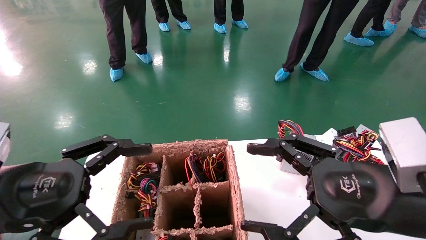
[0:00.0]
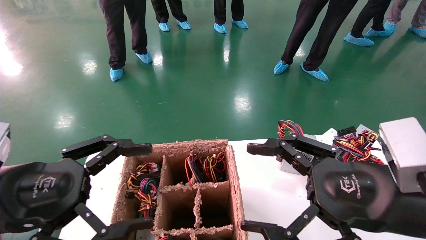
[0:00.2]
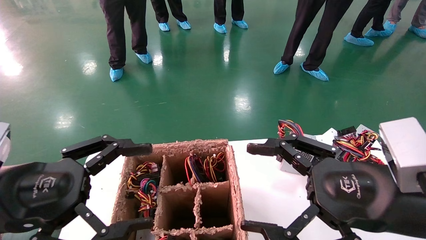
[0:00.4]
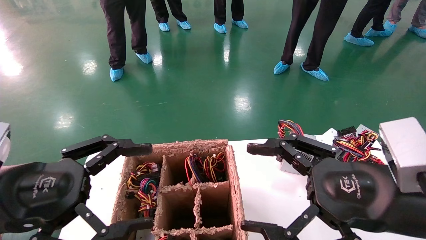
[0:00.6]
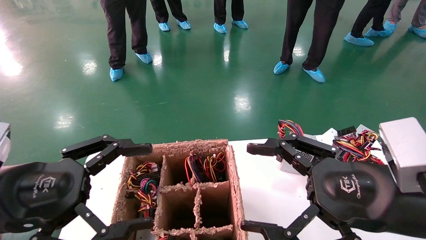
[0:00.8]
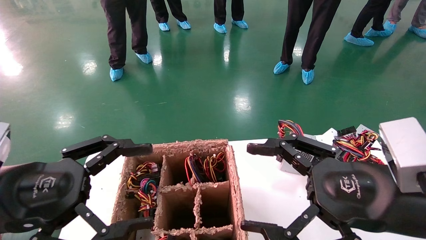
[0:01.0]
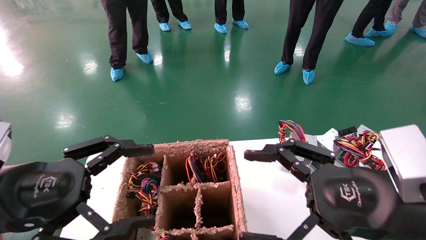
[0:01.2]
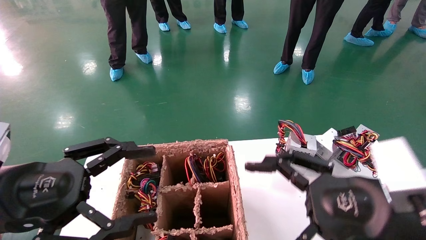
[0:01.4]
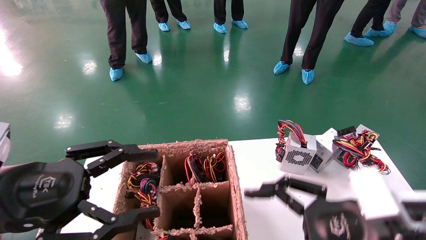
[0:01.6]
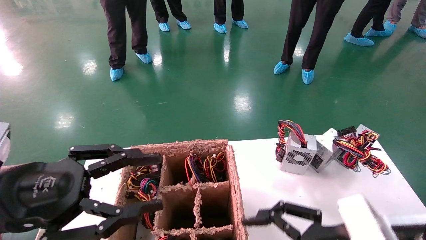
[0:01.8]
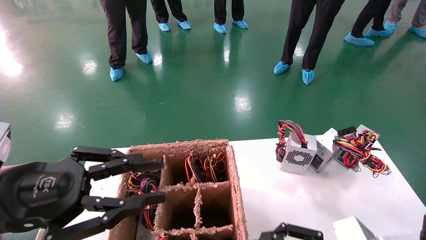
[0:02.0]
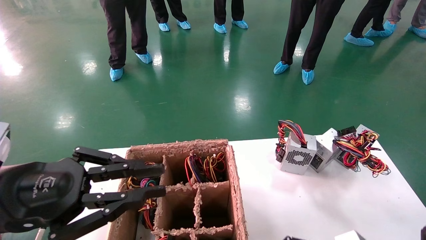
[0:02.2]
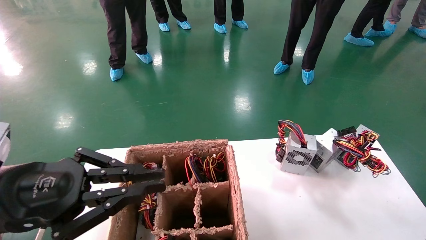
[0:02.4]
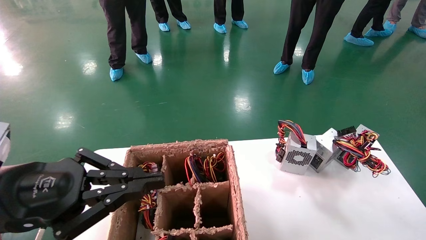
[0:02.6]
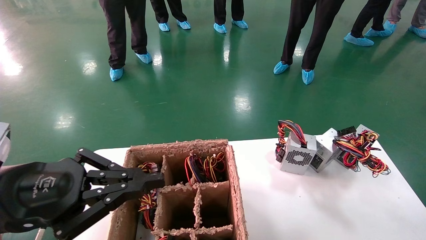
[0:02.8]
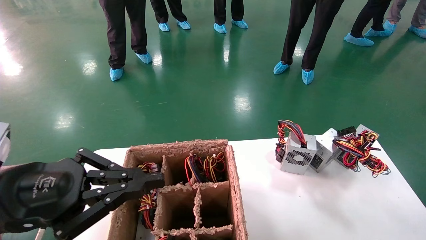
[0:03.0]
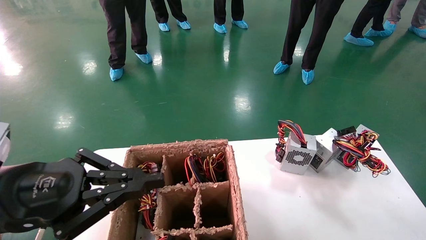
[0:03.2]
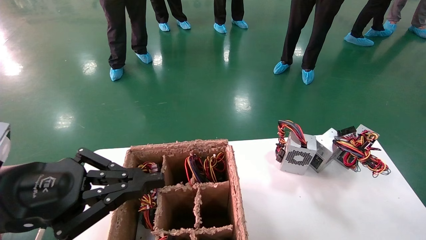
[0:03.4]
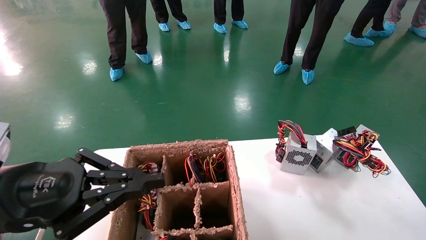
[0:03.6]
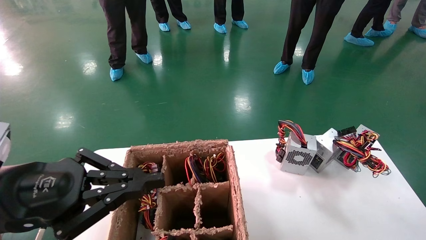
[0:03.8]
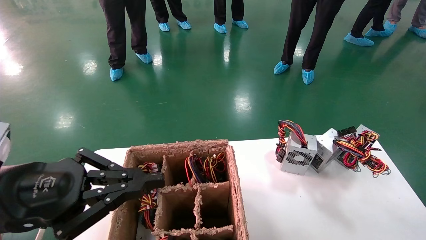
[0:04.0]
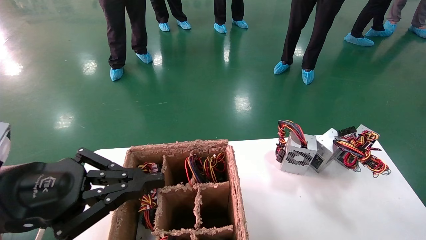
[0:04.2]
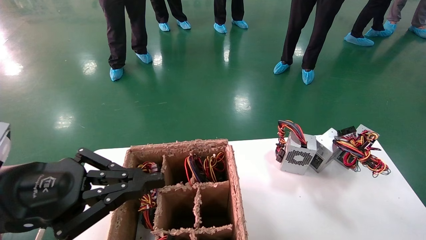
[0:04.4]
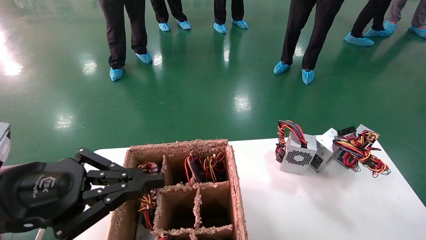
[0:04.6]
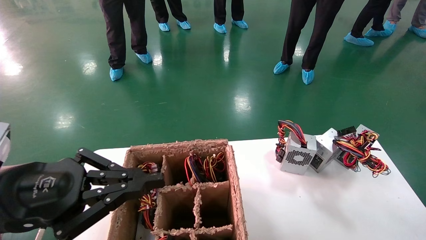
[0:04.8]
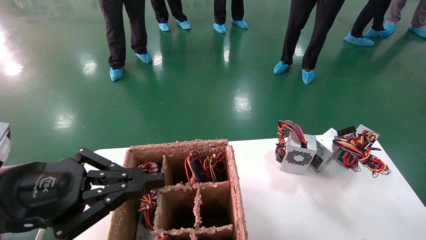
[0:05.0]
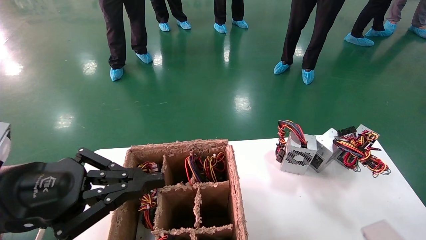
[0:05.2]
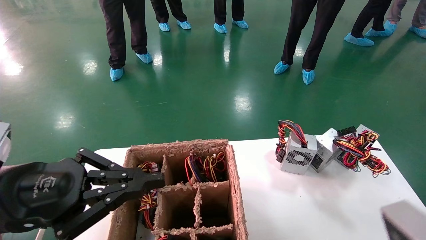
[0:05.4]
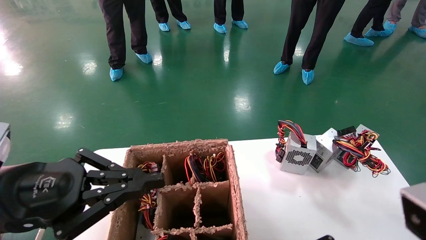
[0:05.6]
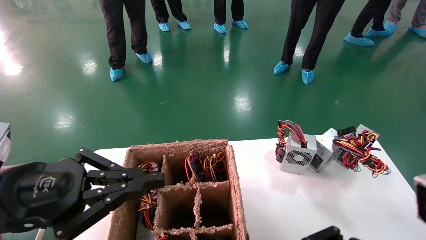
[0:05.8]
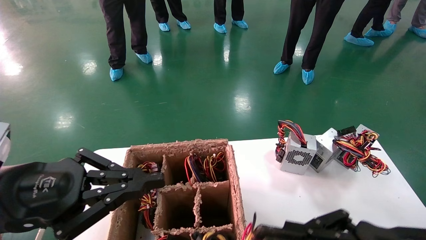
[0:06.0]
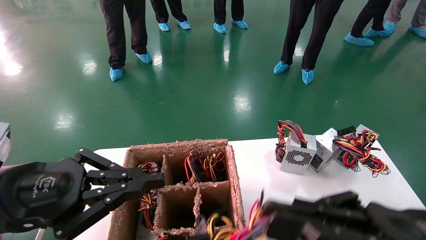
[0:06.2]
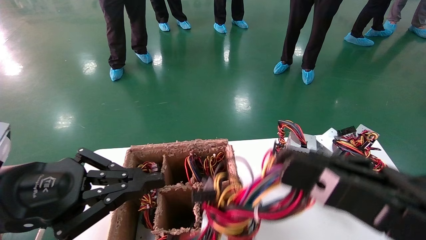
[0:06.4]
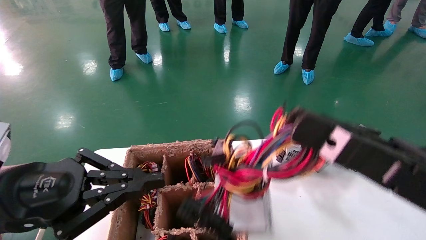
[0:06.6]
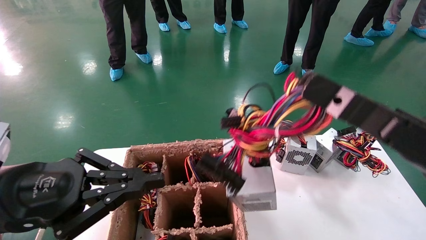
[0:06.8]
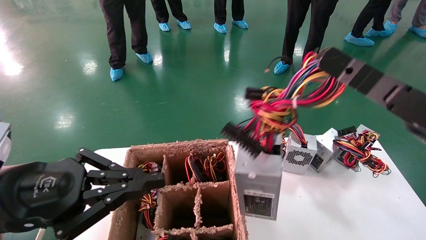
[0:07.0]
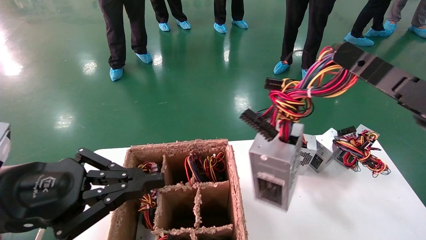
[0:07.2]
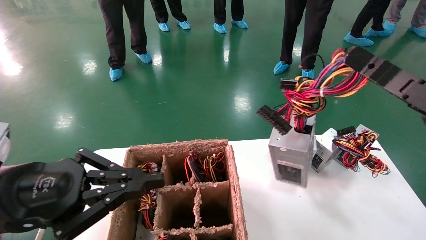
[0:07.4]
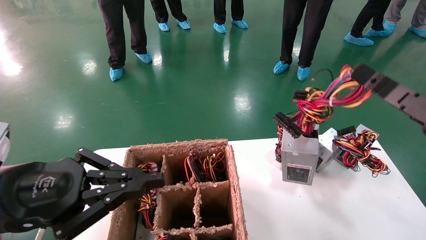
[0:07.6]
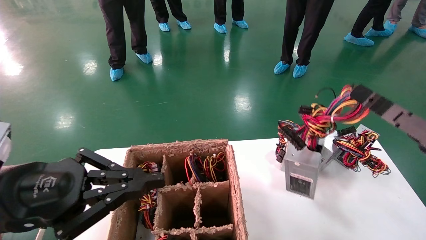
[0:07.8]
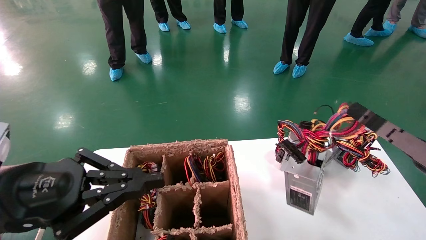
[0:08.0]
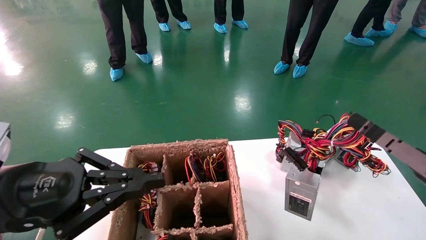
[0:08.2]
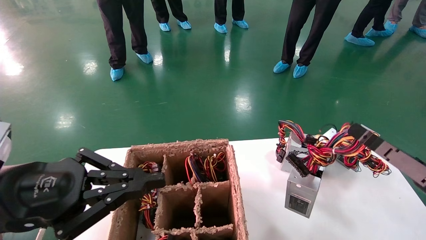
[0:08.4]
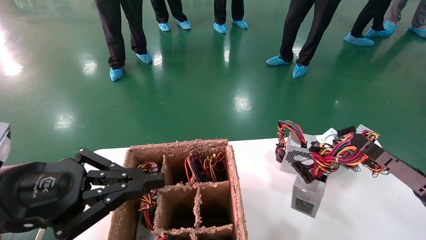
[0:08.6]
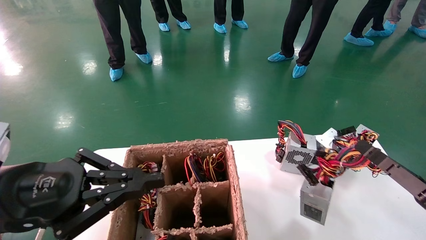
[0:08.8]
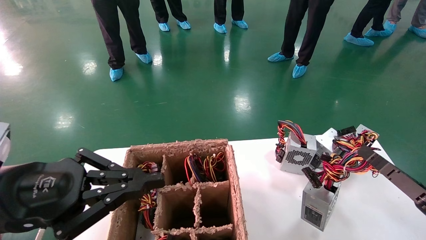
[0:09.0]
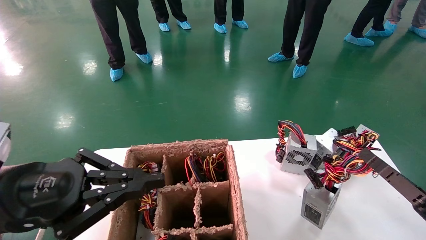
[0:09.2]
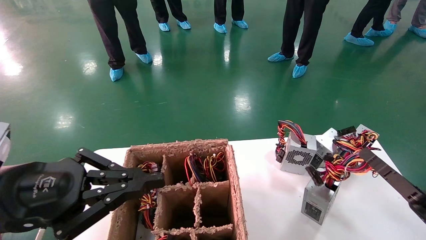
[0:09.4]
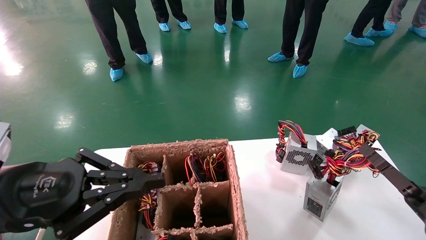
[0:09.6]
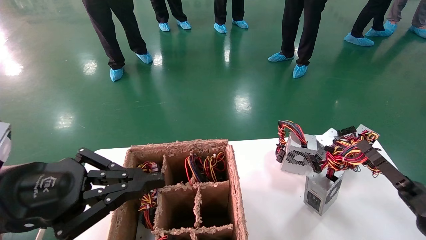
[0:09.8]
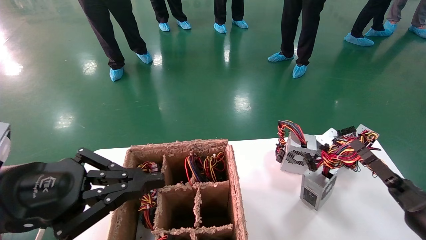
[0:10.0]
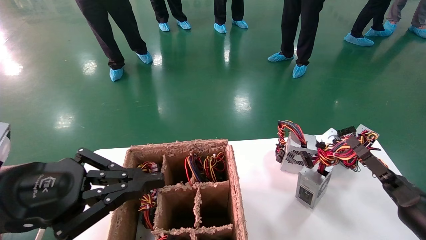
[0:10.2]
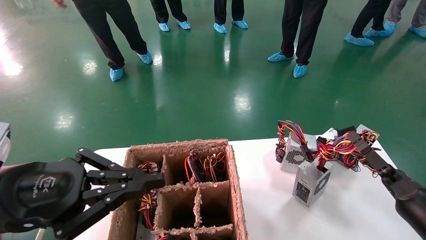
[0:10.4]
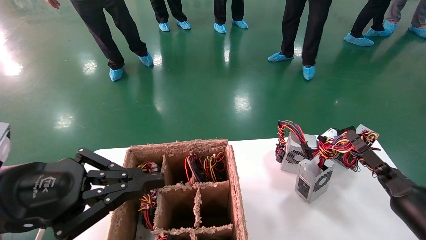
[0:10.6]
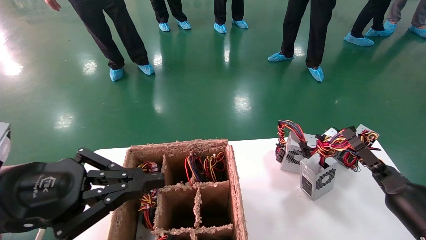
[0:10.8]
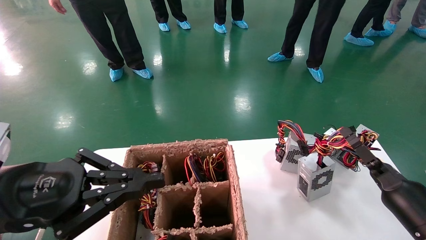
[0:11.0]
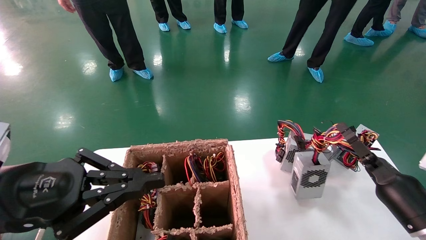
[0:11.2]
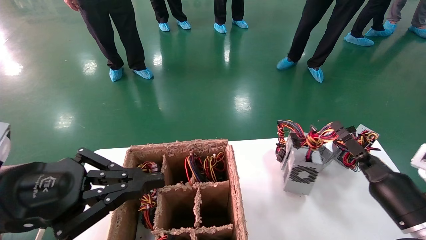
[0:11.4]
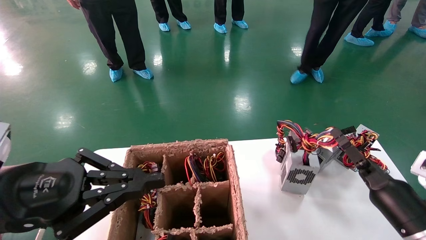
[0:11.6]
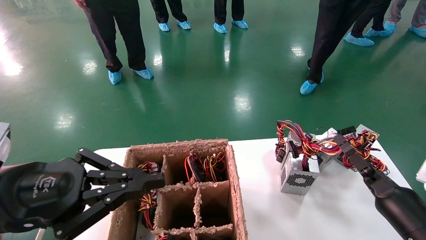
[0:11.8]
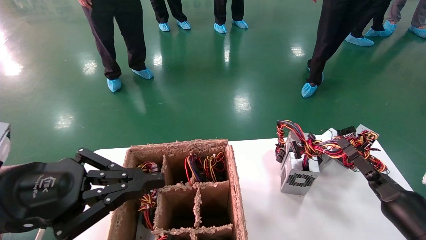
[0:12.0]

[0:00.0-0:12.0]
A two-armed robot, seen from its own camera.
Step, 0:01.4 to 0:04.0: Grab the main unit power supply from the containment box.
0:01.6 to 0:03.0: The left gripper closes up. Meanwhile the right gripper goes about 10 cm downward.
0:04.4 to 0:06.0: The right gripper is displaced upward by approximately 10 cm.
0:06.0 to 0:07.6: The right gripper travels to the right by roughly 10 cm.
0:07.6 to 0:09.0: The right gripper goes approximately 15 cm downward.
0:09.0 to 0:10.4: The right gripper travels forward by some 10 cm.
0:10.4 to 0:12.0: There are only small adjustments of the grippers.

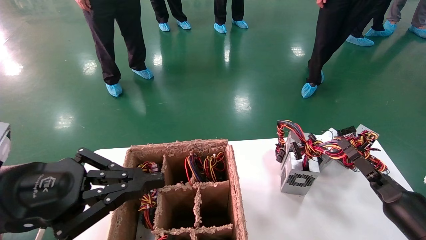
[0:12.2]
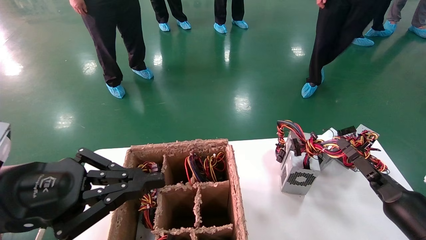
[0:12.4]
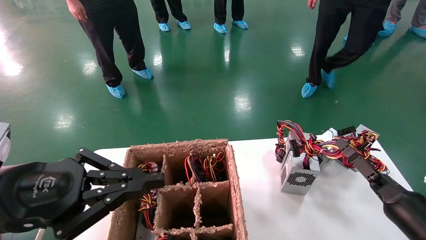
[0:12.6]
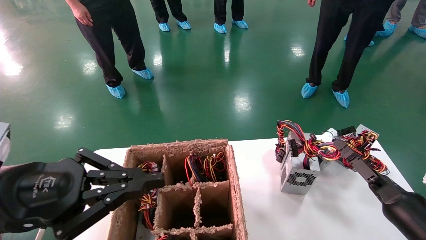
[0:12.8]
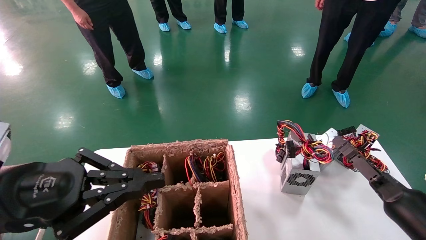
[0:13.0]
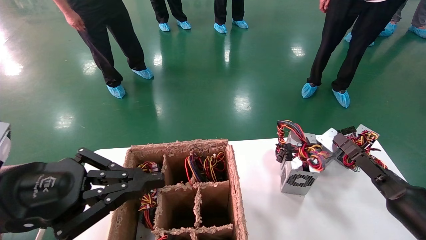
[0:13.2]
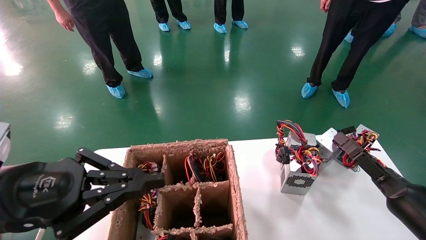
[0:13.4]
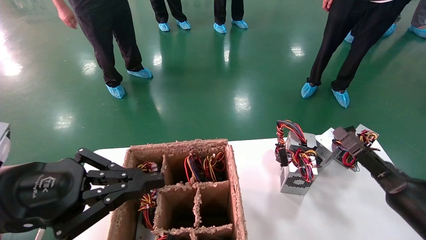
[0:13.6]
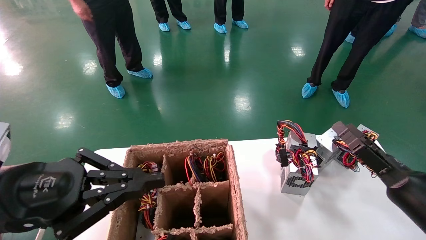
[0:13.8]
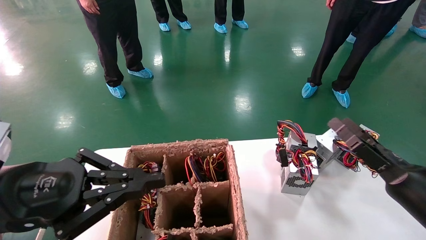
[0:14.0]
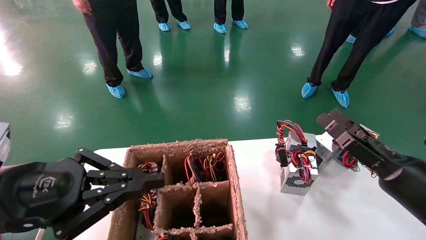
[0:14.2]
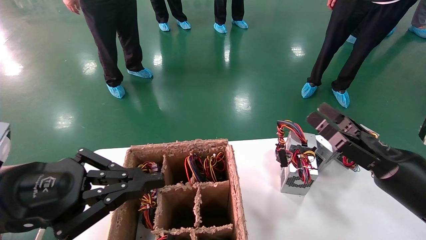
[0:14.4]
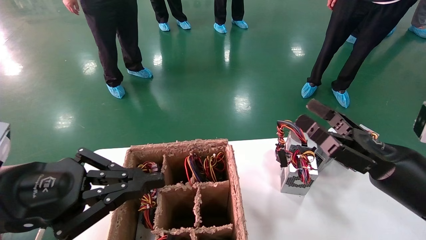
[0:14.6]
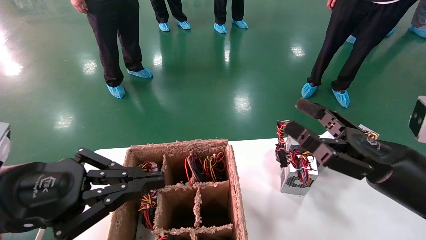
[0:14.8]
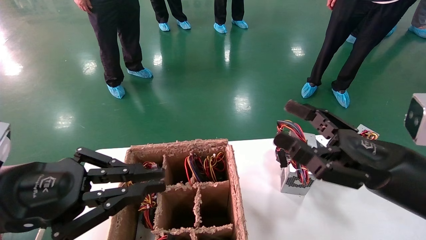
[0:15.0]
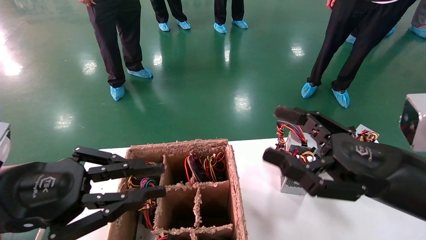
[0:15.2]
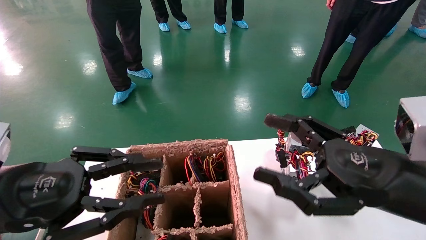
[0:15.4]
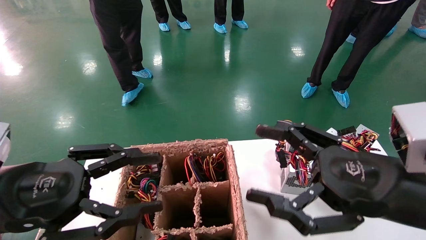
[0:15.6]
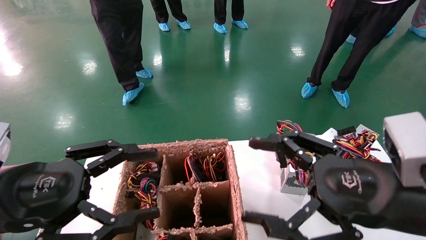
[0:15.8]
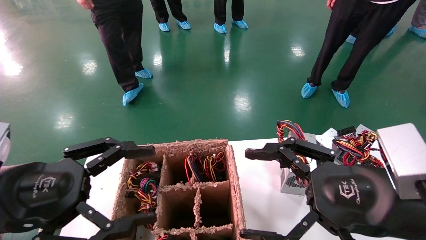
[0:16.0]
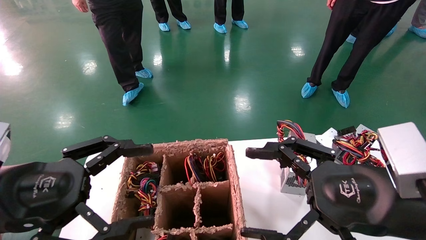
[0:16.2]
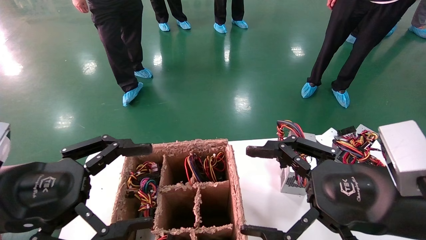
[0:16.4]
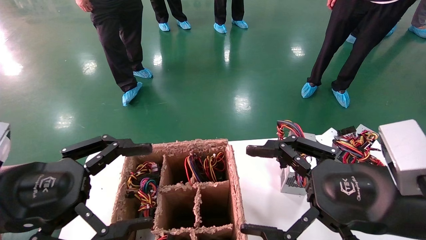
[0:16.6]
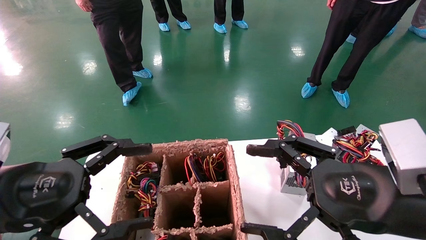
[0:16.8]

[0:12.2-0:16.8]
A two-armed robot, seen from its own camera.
0:12.2 to 0:13.8: The right gripper travels upward by some 5 cm, and opens up.
0:13.8 to 0:15.2: The right gripper is displaced upward, to the left and backward by about 15 cm.
0:15.2 to 0:16.8: The left gripper opens.
